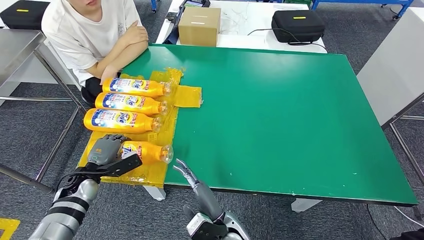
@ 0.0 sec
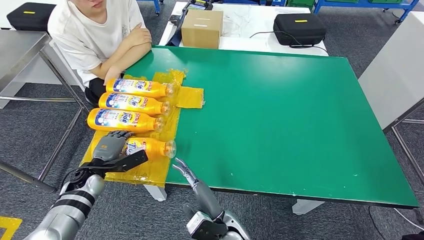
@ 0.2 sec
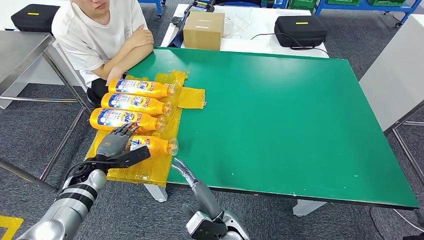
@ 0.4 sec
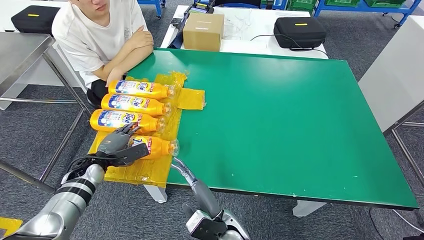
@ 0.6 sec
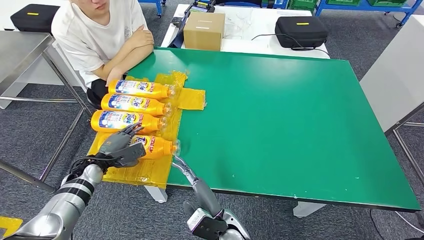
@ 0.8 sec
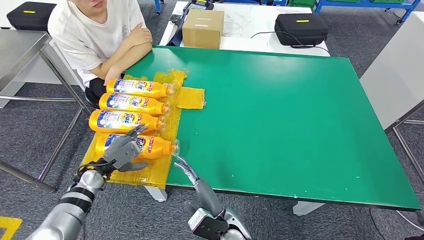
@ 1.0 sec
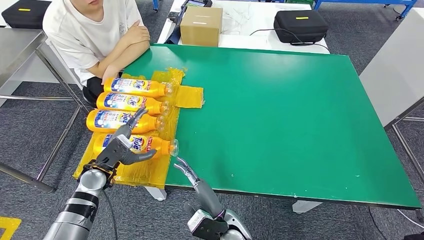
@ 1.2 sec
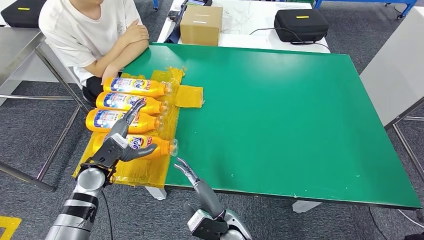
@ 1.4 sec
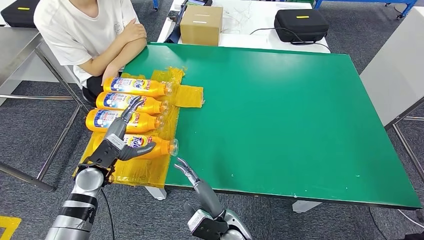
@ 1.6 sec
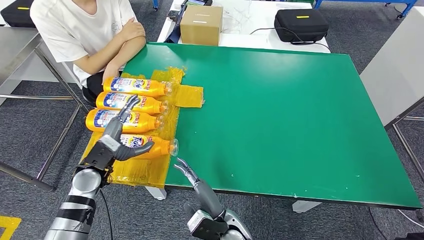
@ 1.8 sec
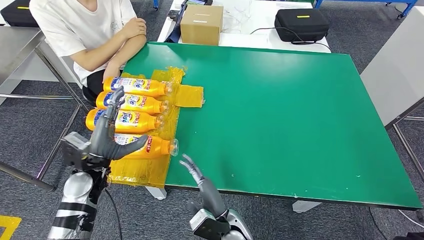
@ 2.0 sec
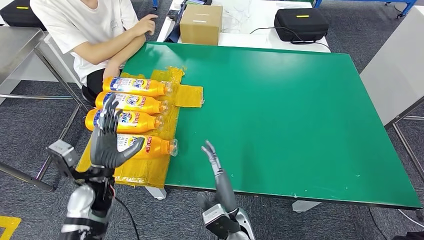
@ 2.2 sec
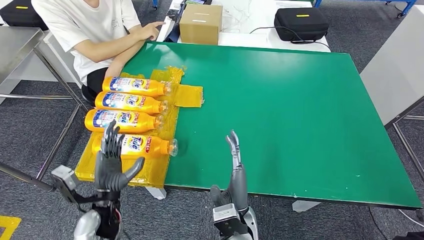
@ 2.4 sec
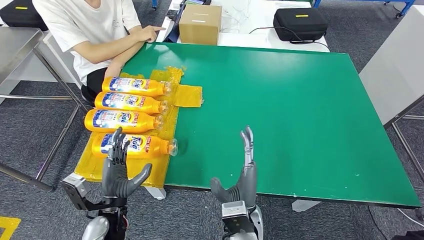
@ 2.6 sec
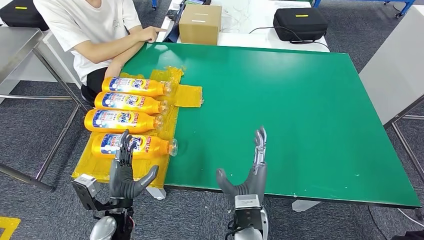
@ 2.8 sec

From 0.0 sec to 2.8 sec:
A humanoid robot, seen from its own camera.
Step, from 0.0 sec to 2.8 sec: Flip the bottle to face forward.
From 0.0 sec to 1.4 sec: The left hand travels to the right and upward by roughly 10 cm.
From 1.4 sec to 2.8 sec: The right hand shifts some 5 cm upward. Meanwhile the left hand is displaced backward and to the right by approximately 15 cm.
